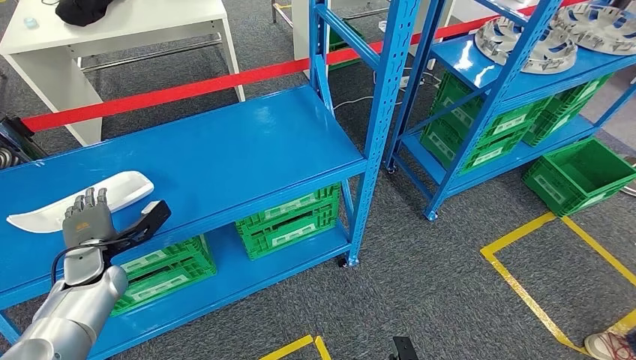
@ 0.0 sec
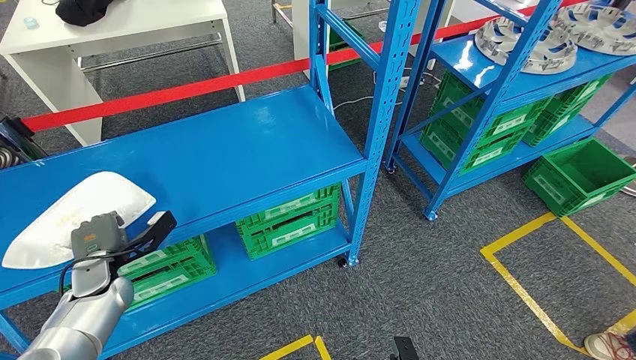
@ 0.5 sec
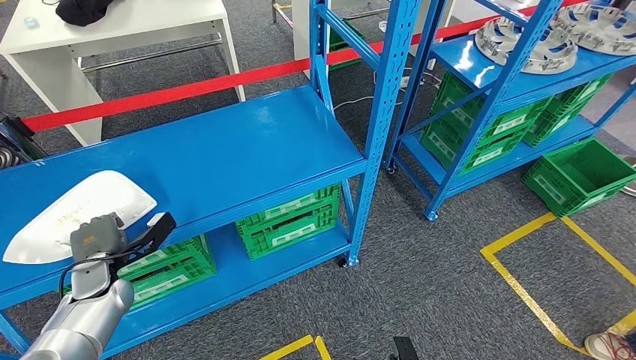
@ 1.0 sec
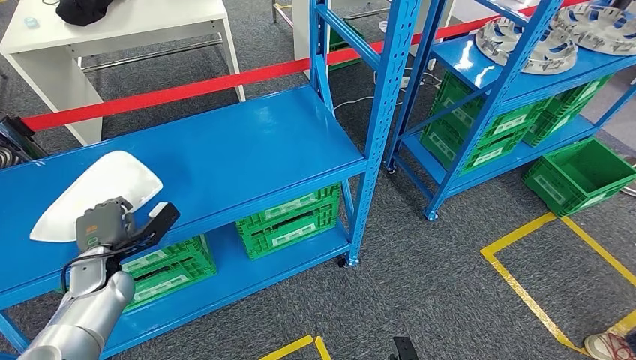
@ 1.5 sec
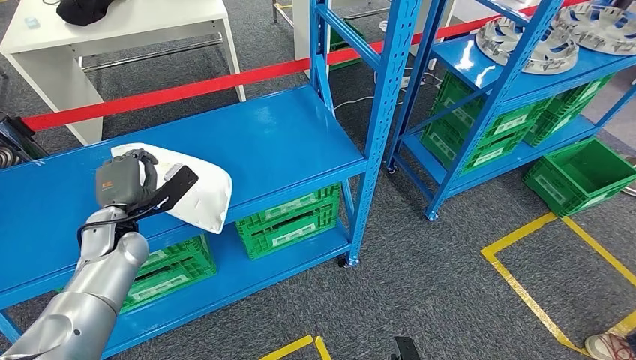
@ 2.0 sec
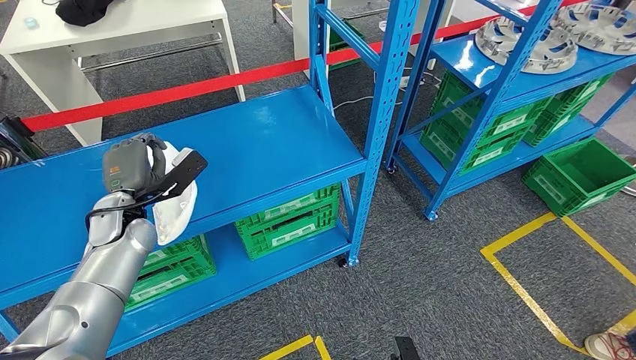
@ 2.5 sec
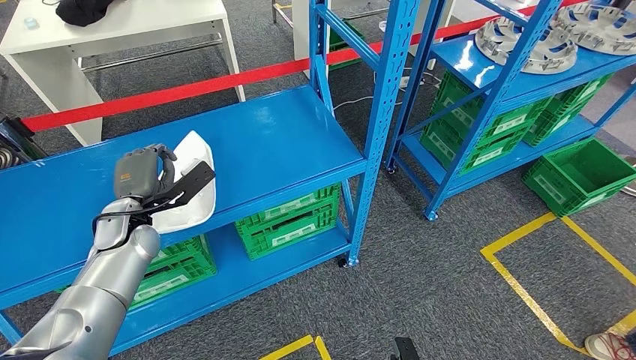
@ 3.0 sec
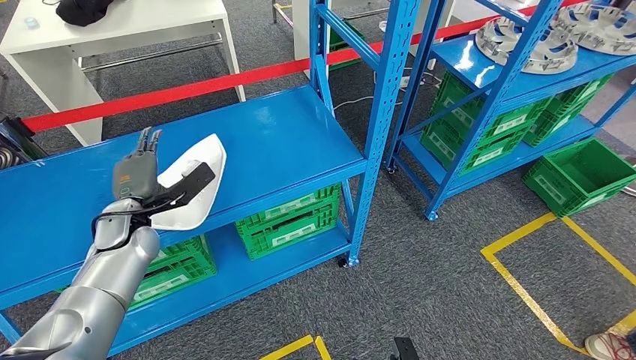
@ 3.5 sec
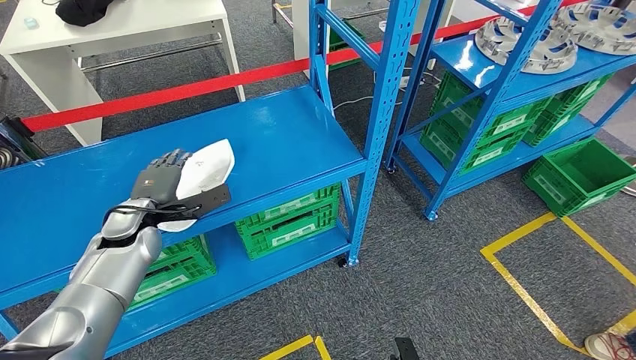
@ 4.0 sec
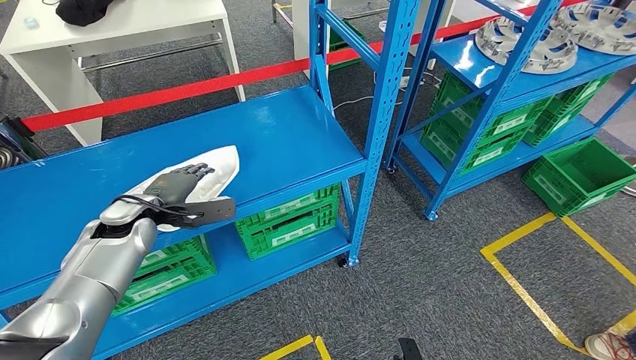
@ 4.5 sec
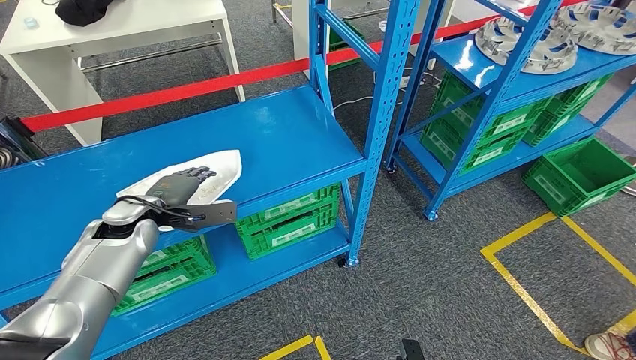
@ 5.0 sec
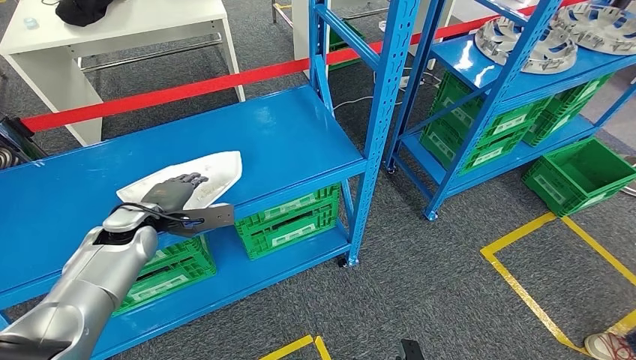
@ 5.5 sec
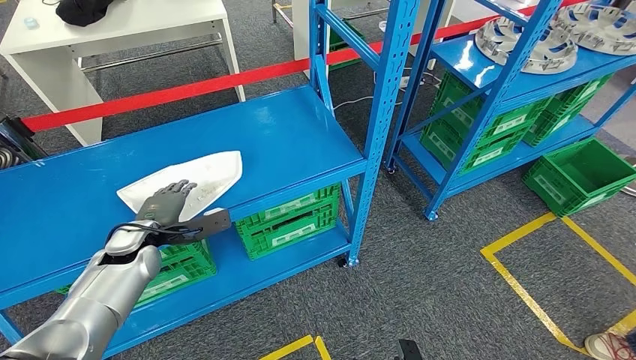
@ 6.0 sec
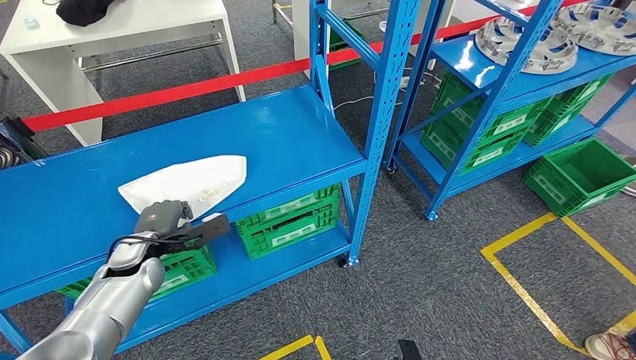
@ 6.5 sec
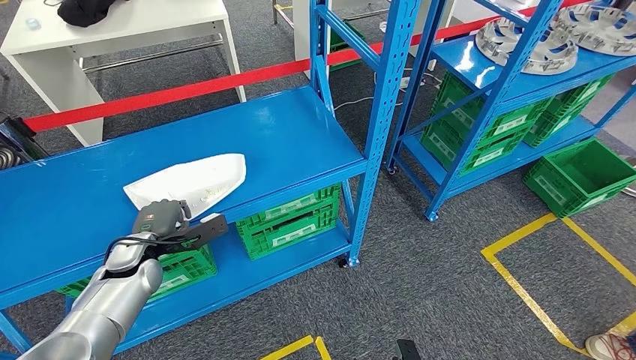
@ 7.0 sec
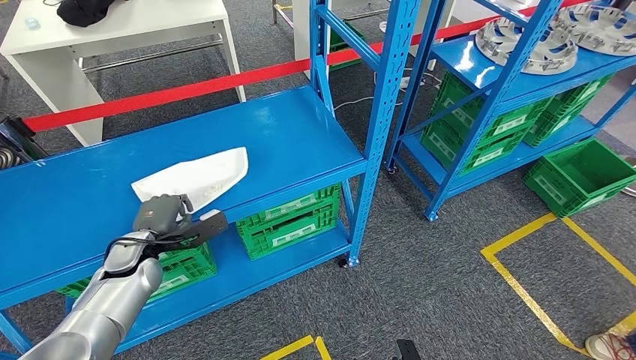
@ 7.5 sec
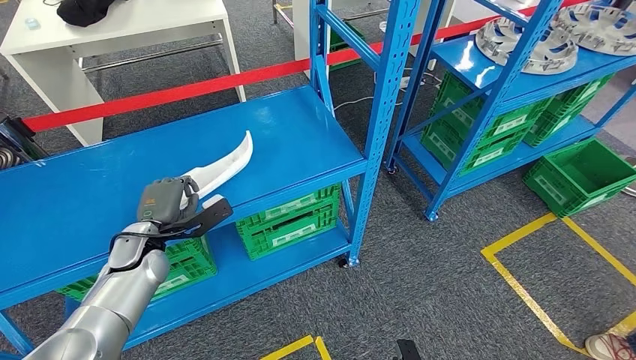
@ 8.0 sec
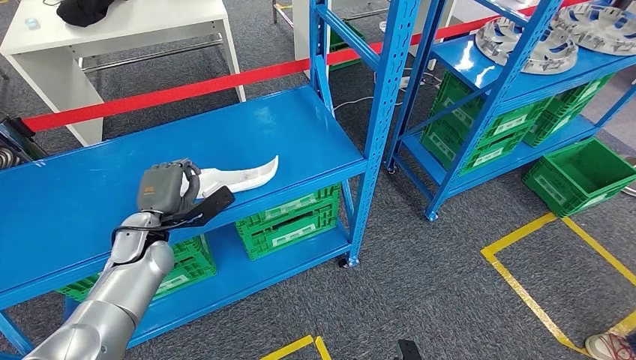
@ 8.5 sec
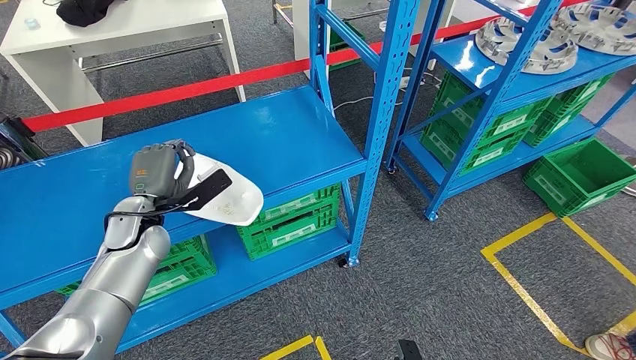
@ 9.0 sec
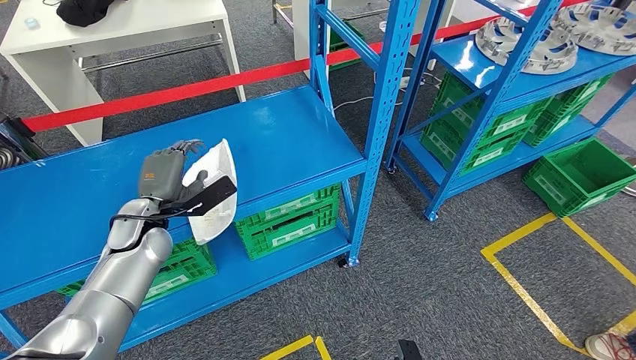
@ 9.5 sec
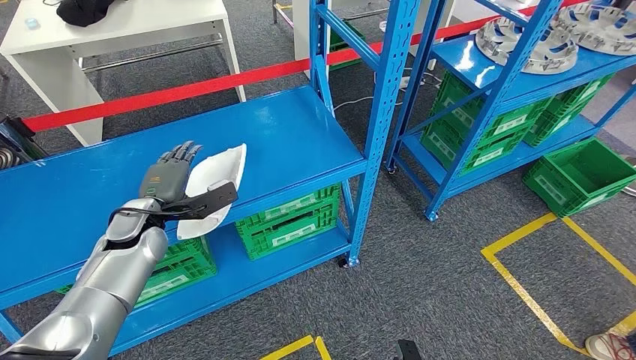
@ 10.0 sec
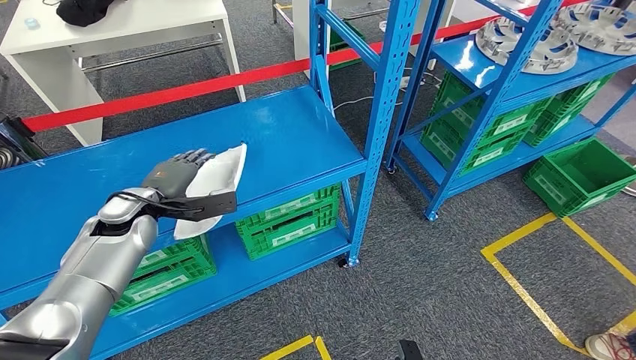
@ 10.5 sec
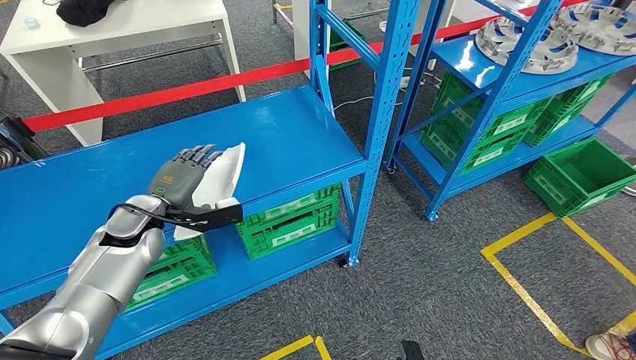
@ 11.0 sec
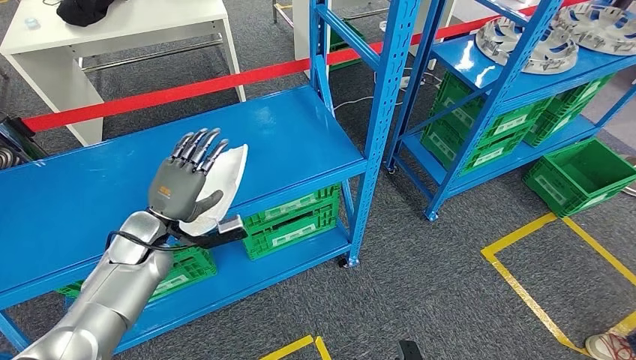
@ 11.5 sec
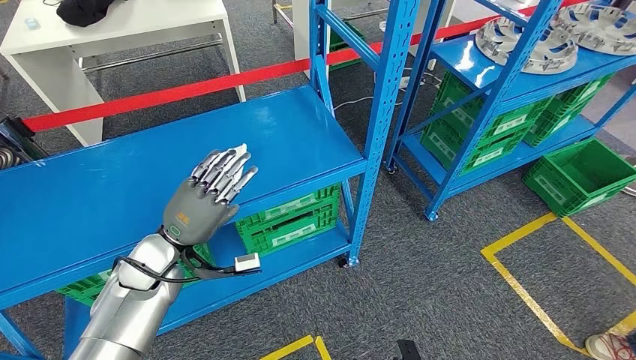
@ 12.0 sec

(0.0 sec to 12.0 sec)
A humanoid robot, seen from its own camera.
0.0 sec - 2.0 sec: The left hand moves to the right and upward, some 10 cm.
8.0 sec - 10.0 sec: The left hand ends up about 5 cm from where it was.
10.0 sec - 12.0 sec: The left hand travels backward by approximately 5 cm.

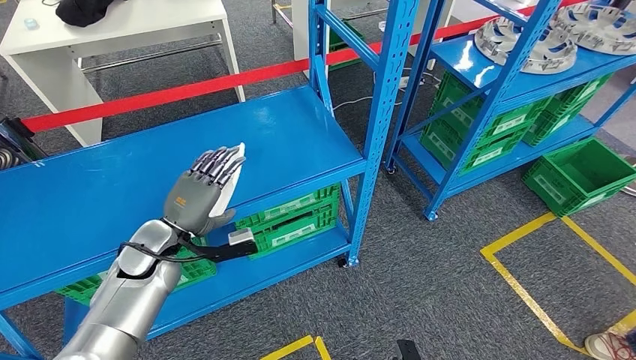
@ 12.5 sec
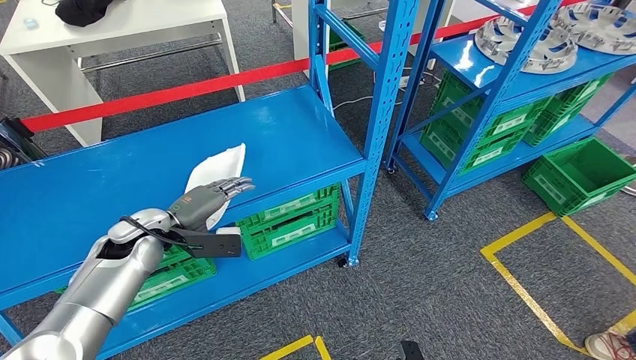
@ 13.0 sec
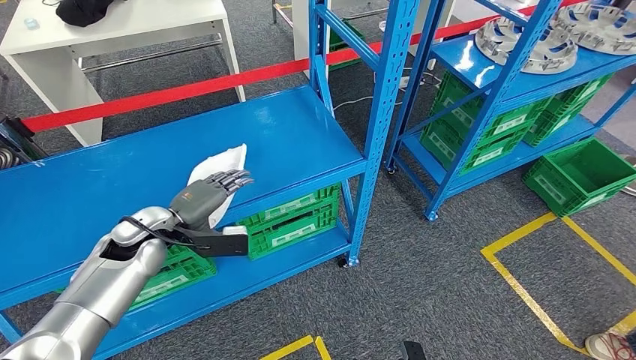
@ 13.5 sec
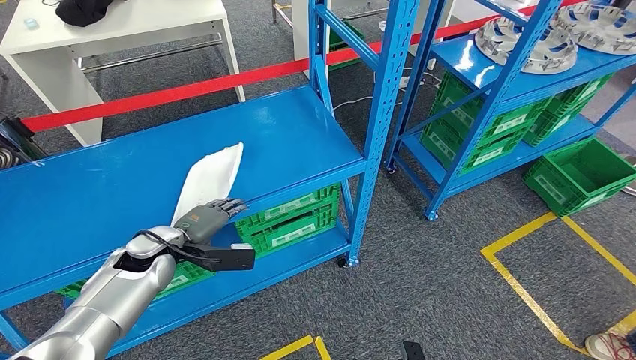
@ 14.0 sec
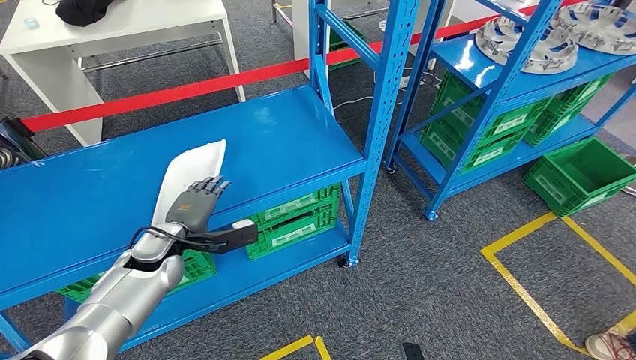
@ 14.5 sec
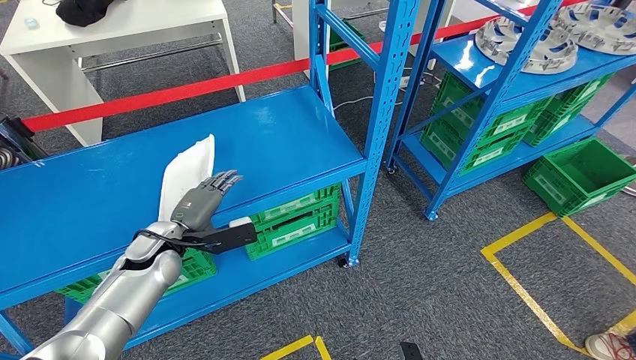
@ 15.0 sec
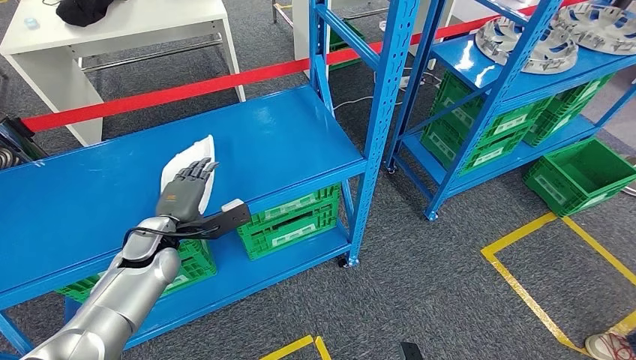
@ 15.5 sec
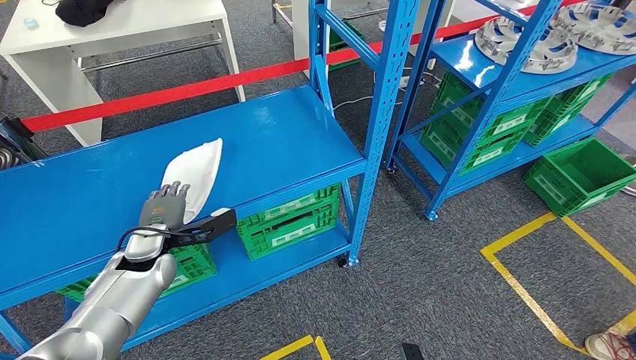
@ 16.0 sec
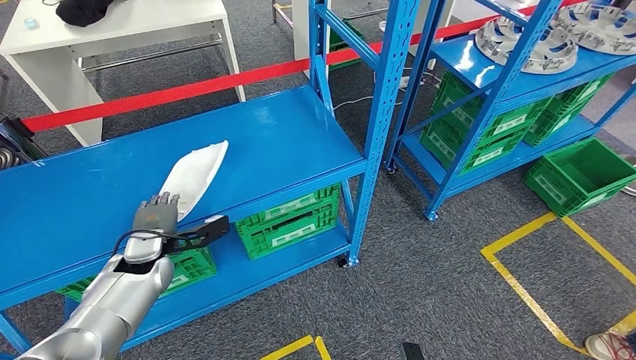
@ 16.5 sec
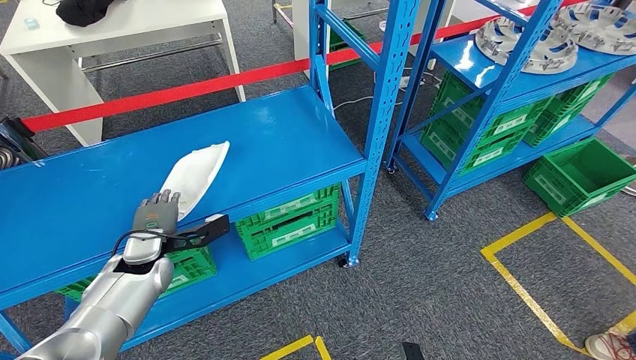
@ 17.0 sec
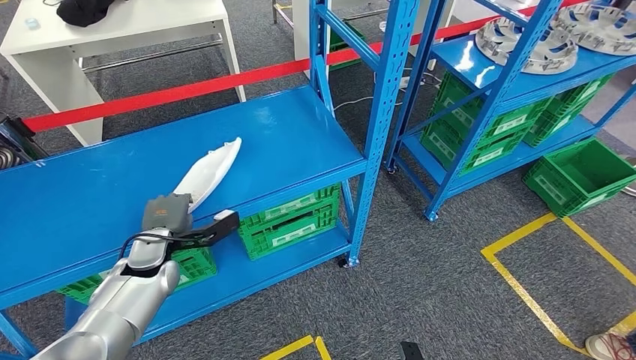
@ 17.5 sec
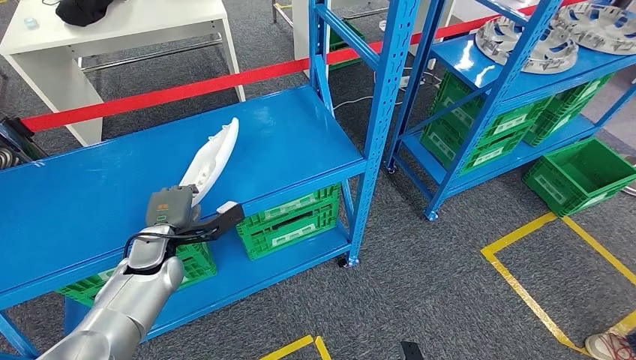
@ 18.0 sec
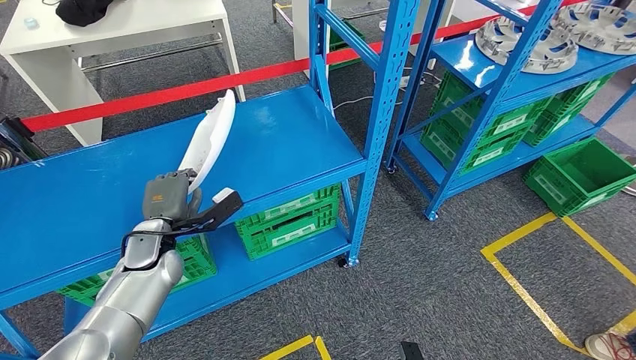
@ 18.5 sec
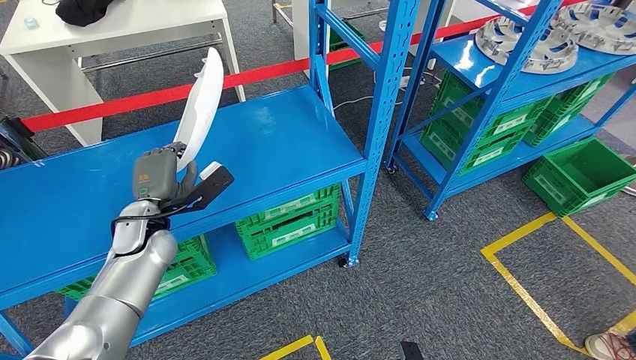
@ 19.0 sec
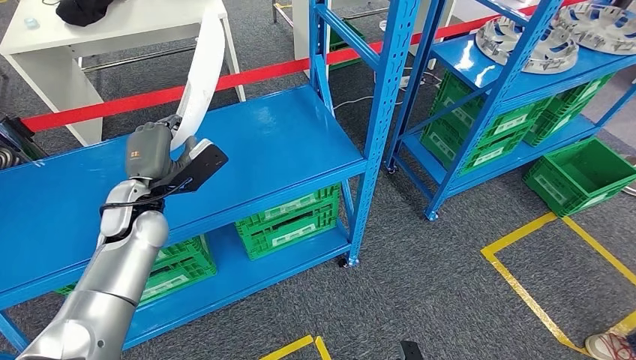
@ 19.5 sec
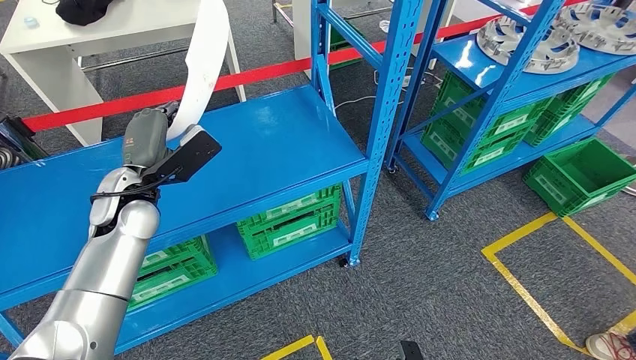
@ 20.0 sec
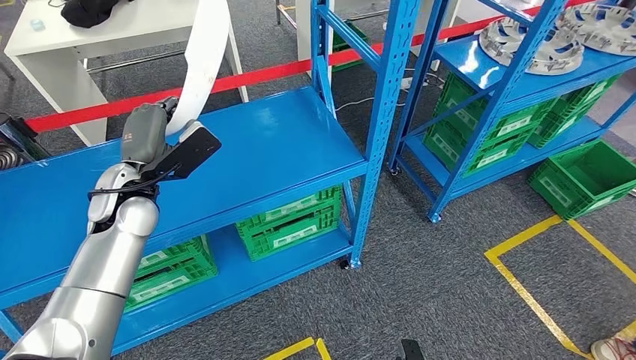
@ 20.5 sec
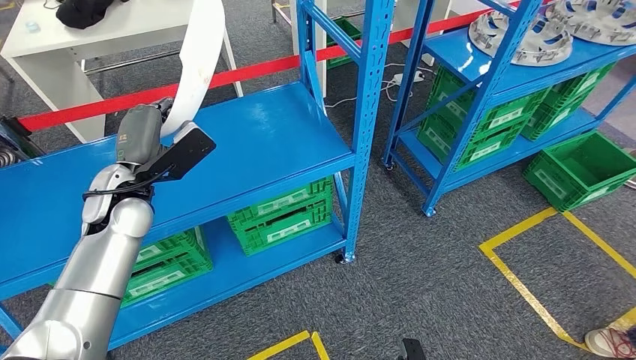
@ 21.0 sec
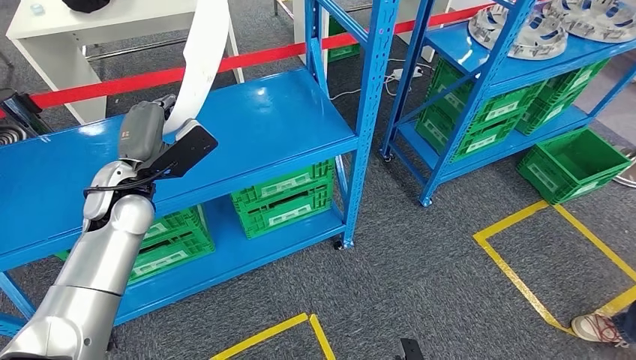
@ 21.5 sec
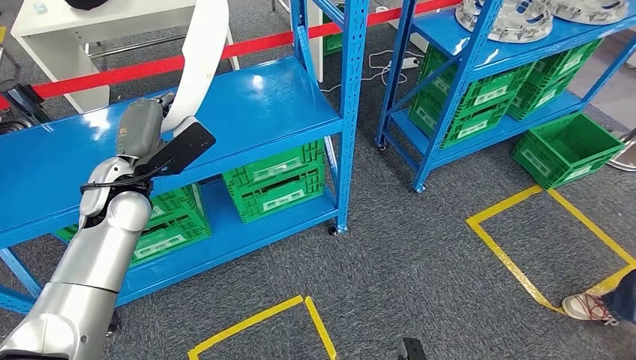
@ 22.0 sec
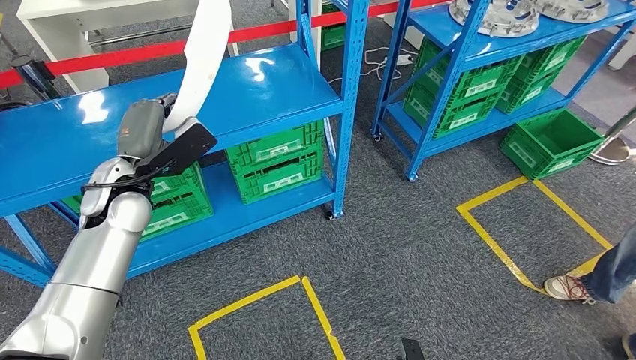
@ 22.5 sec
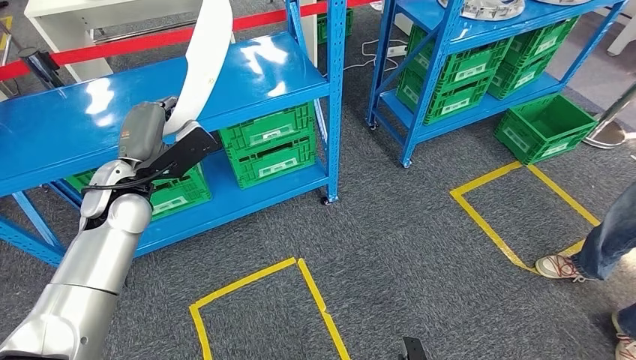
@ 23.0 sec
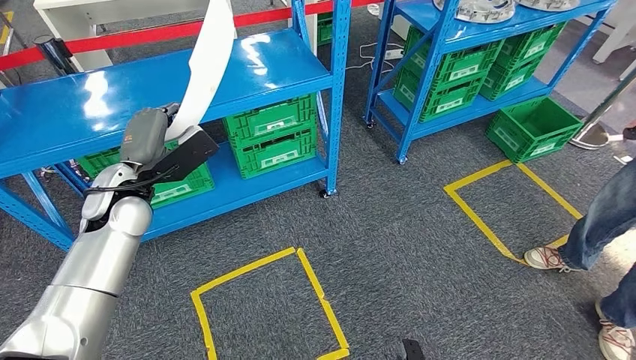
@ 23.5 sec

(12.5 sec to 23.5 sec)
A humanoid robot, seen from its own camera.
Step, 12.5 sec - 20.5 sec: Pick up the small component from the shelf.
16.0 sec - 18.0 sec: The hands stay close to where they were, moving slightly.
18.0 sec - 20.0 sec: The left hand shifts approximately 15 cm upward.
